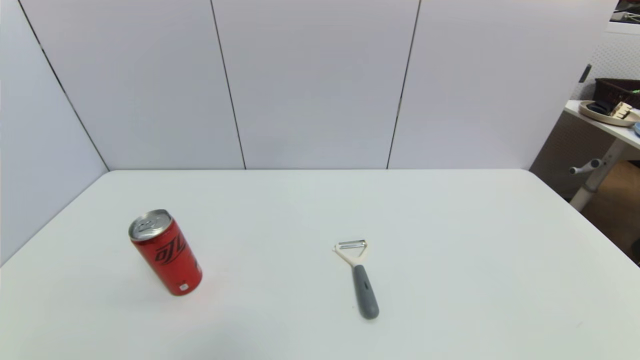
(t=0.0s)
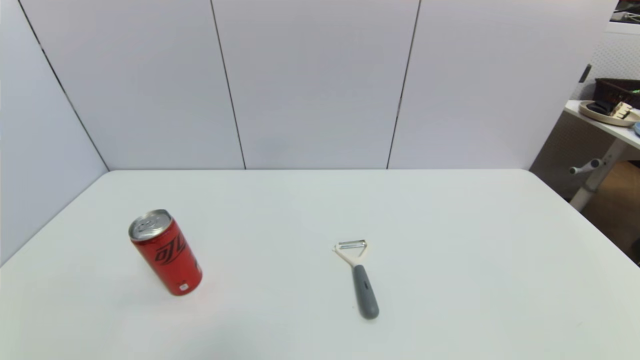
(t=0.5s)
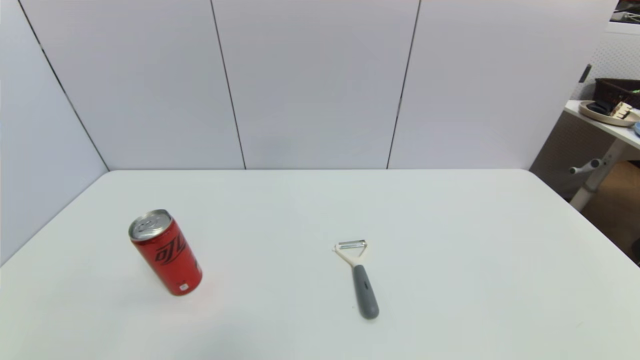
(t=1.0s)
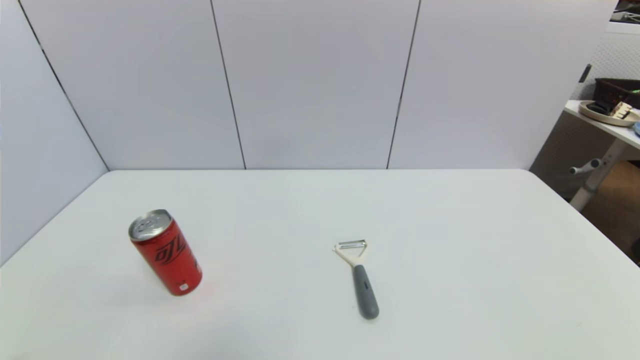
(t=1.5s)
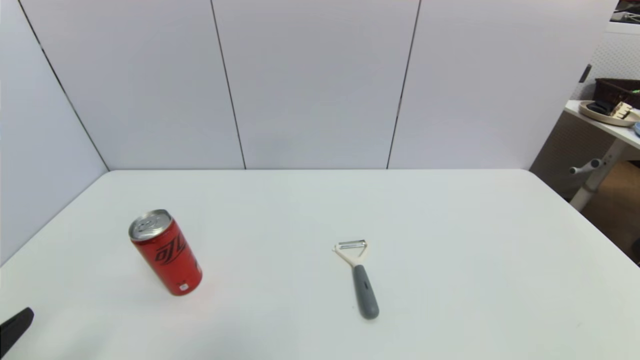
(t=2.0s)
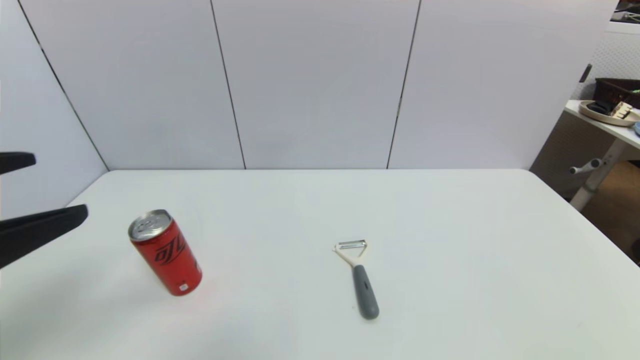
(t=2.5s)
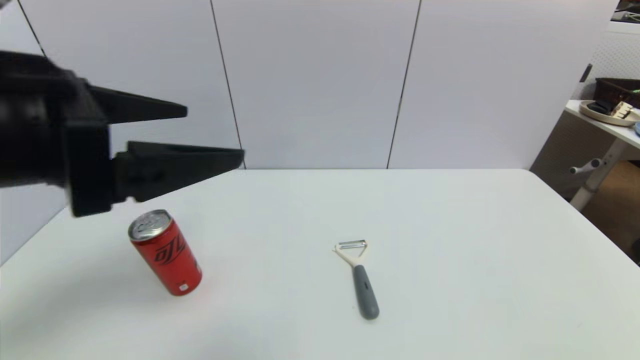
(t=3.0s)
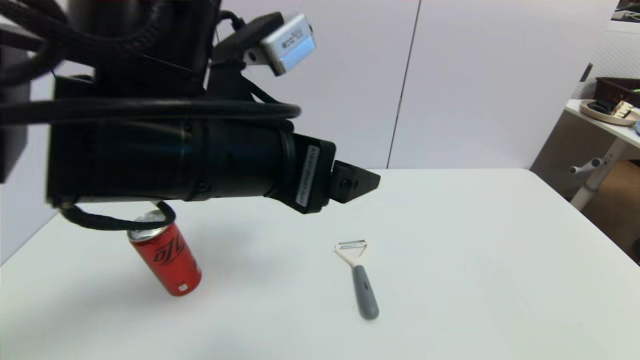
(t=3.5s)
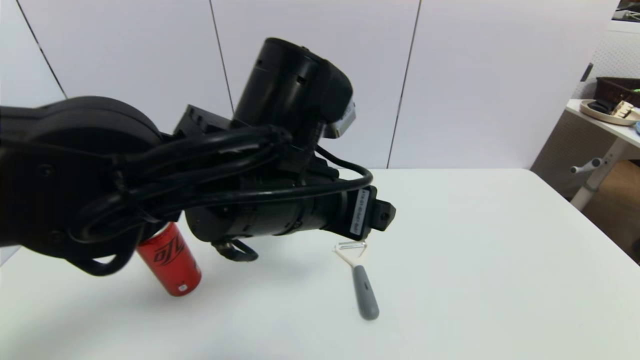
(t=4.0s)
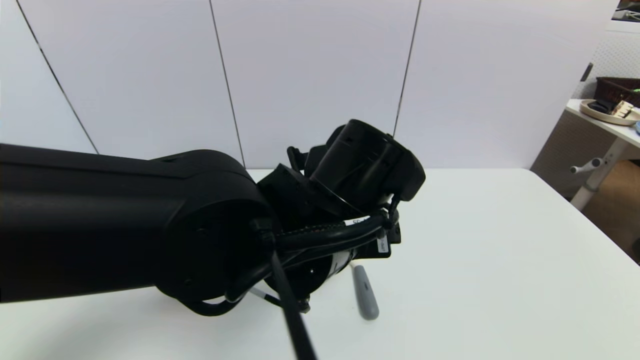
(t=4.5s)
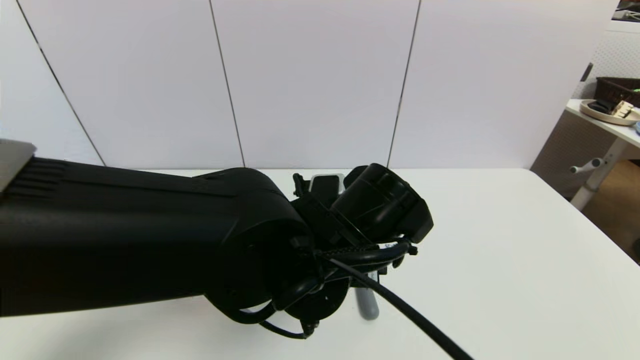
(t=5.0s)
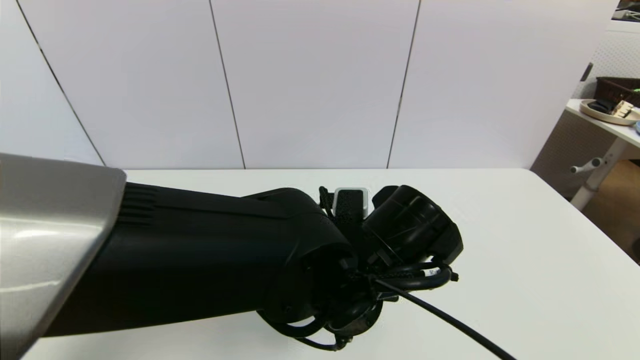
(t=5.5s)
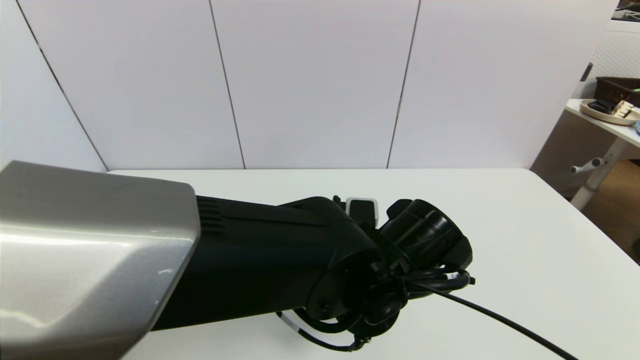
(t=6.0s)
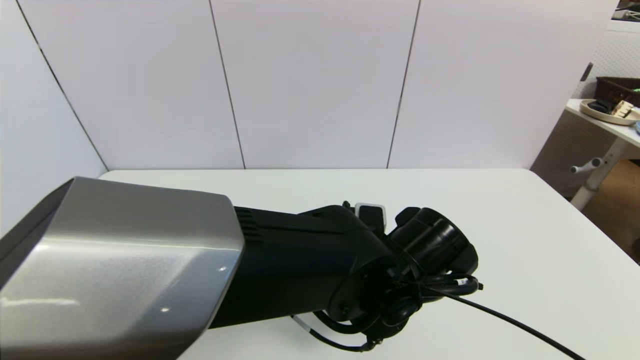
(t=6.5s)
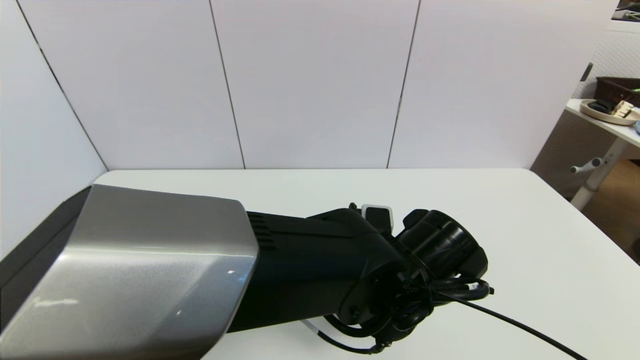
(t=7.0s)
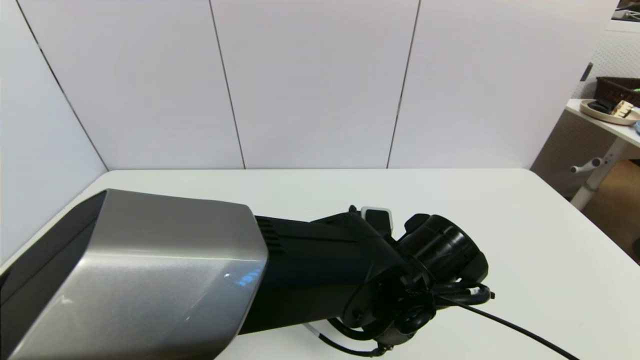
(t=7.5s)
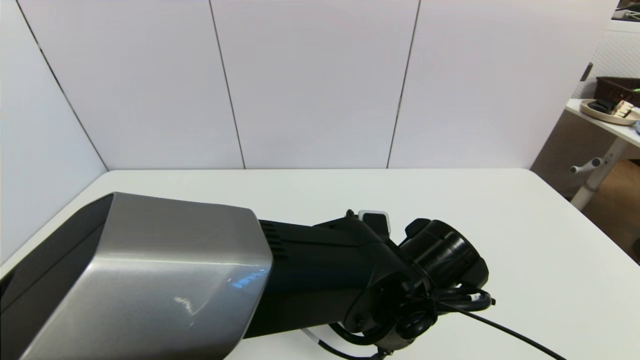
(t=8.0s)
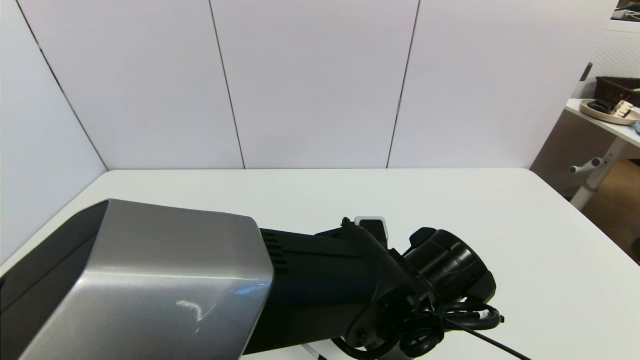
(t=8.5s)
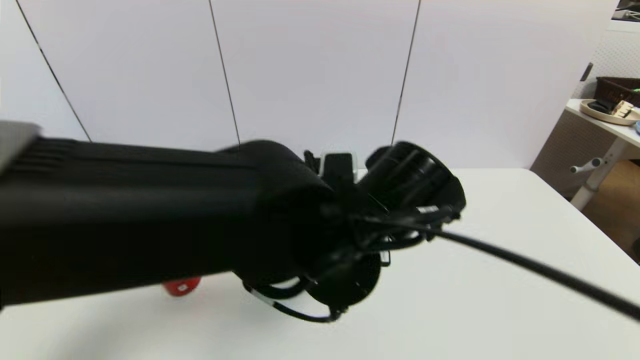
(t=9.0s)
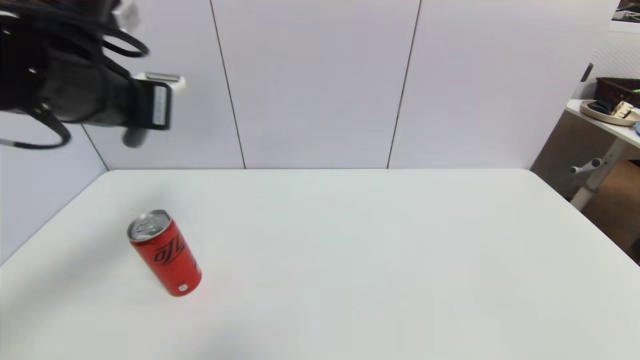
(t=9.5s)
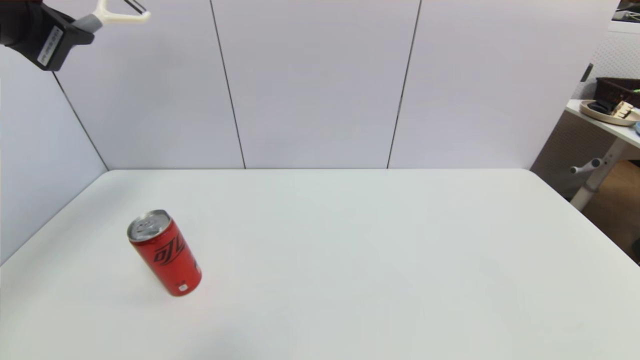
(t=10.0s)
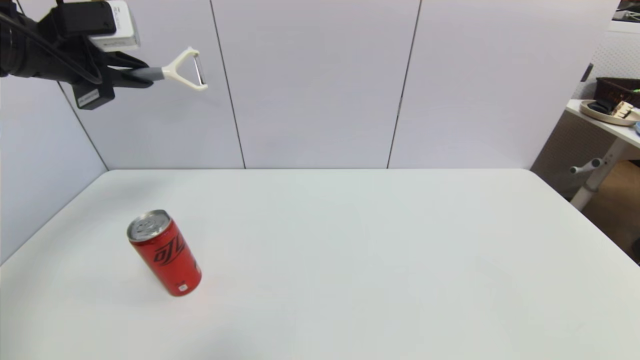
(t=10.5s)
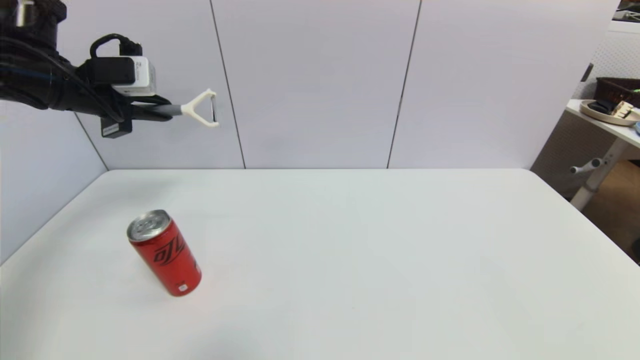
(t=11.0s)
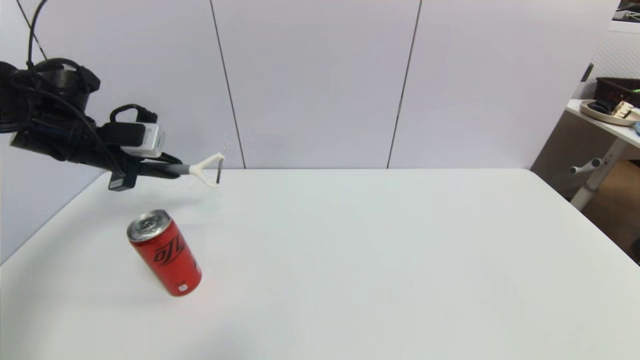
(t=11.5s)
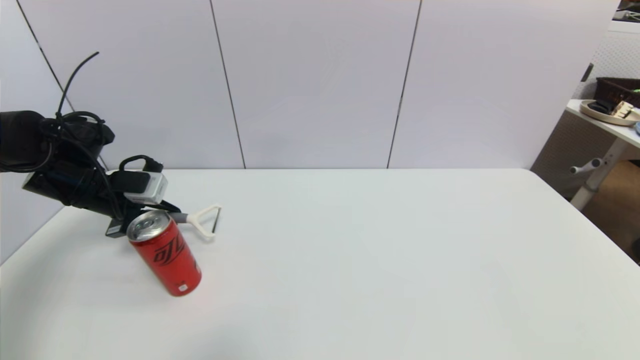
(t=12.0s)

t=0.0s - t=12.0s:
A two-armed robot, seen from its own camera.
Step, t=2.0s - t=8.5s: Grasp the peeler with left gripper.
t=2.0s - t=4.0s: The left gripper shifts about 35 cm to the right and forward.
t=4.0s - t=6.0s: The left gripper goes roughly 15 cm downward and to the right.
t=6.0s - t=8.0s: The left gripper closes its fingers.
t=8.0s - t=10.0s: The left gripper travels to the left and upward by roughly 40 cm, and closes its fingers.
t=10.0s - t=12.0s: The left gripper moves downward and forward, about 25 cm.

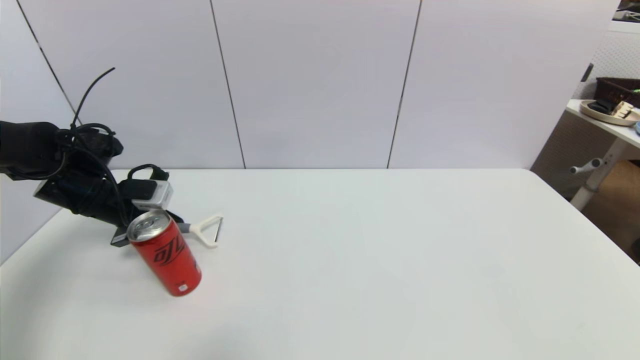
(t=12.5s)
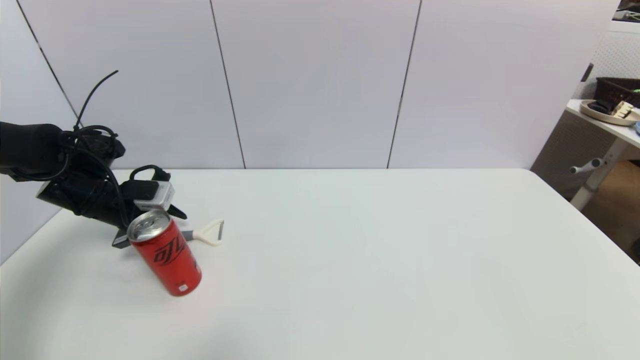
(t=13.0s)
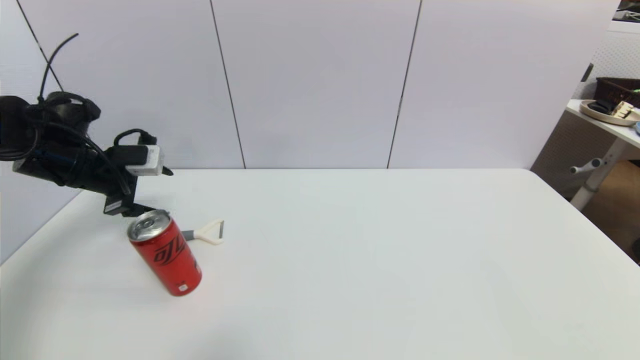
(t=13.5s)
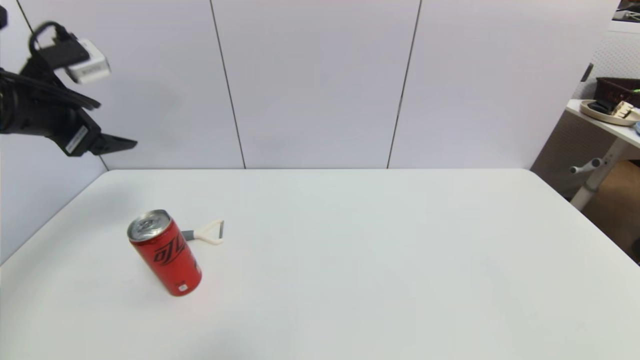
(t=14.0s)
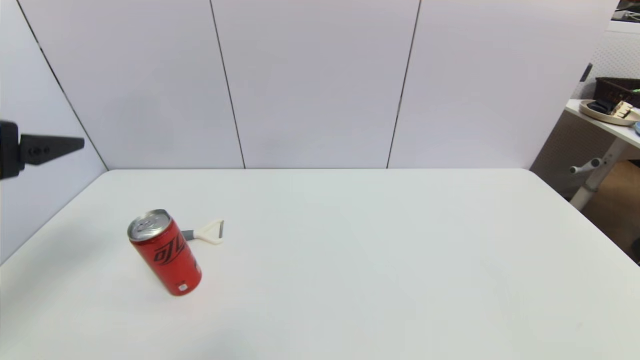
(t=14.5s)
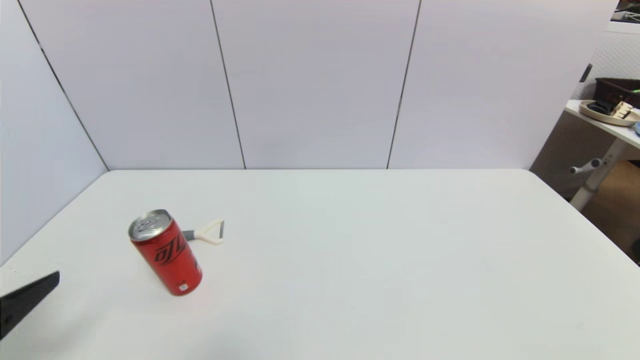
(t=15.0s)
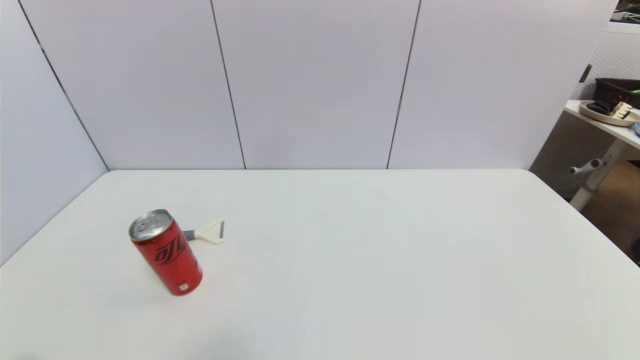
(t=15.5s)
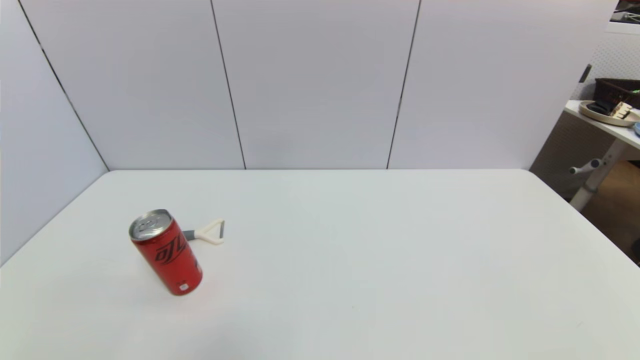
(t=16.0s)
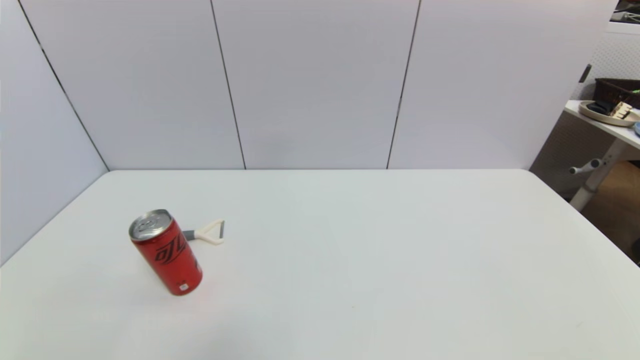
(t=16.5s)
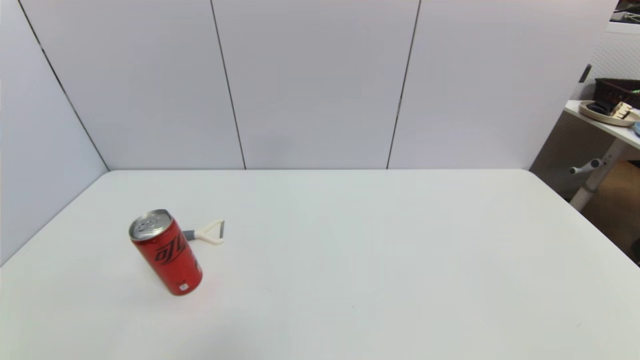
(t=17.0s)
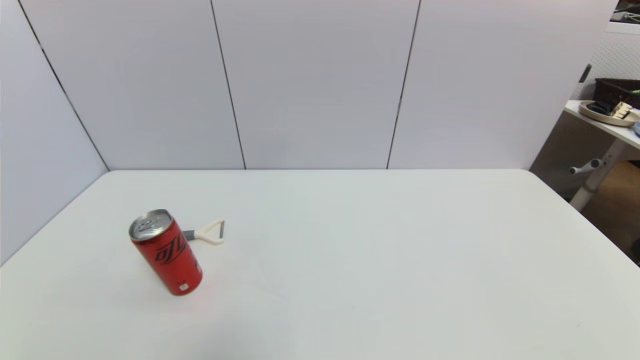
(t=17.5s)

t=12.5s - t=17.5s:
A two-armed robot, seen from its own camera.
t=12.5s - t=15.0s: The left gripper moves backward, some 30 cm, and opens up.
t=15.0s - t=17.5s: The left gripper shifts about 15 cm downward and backward.
